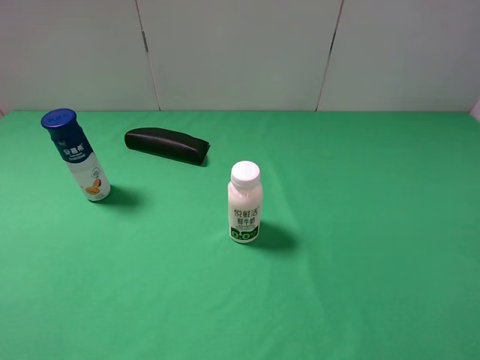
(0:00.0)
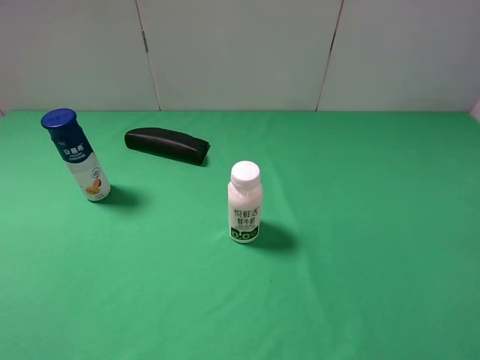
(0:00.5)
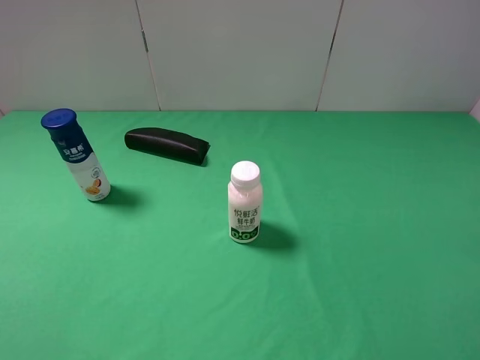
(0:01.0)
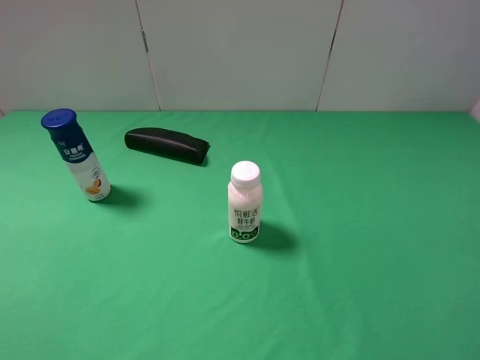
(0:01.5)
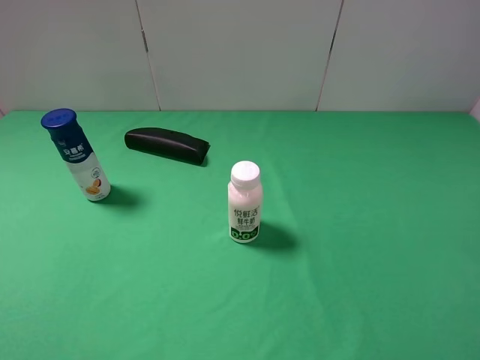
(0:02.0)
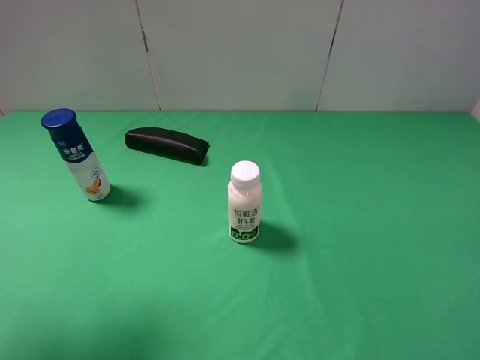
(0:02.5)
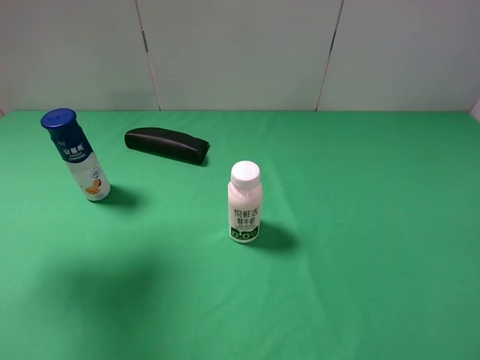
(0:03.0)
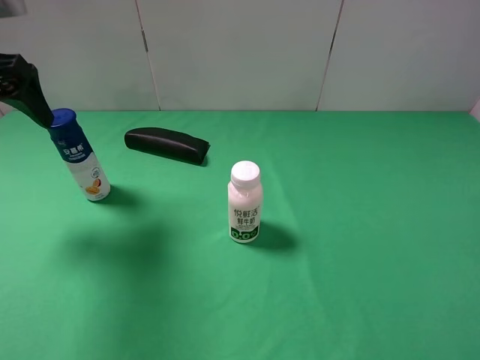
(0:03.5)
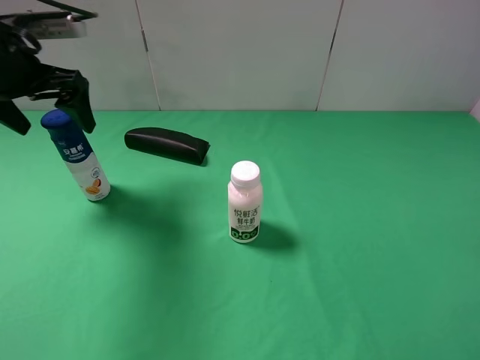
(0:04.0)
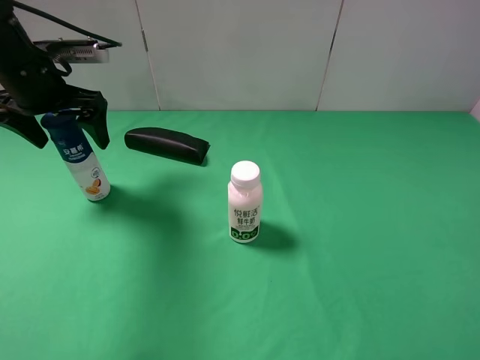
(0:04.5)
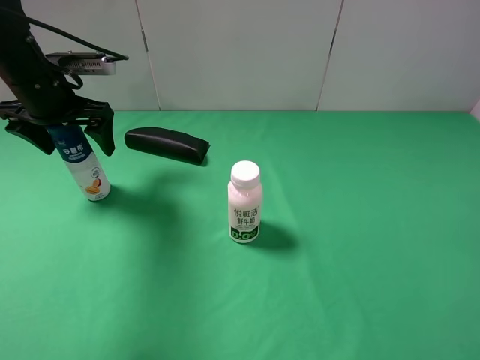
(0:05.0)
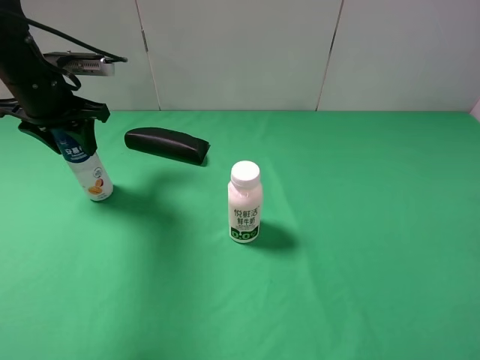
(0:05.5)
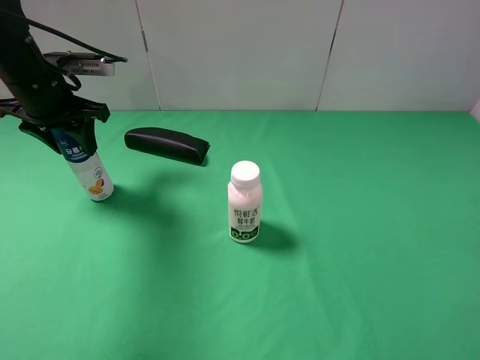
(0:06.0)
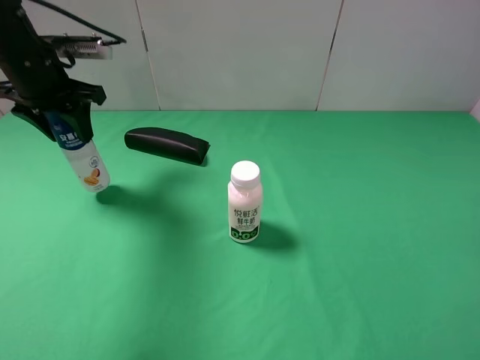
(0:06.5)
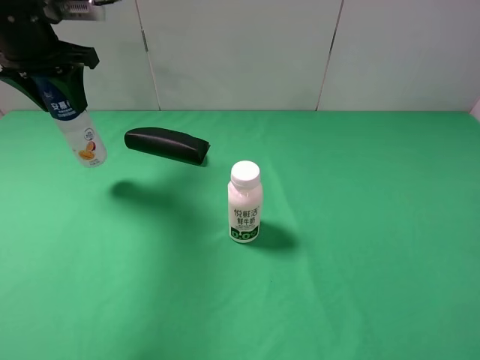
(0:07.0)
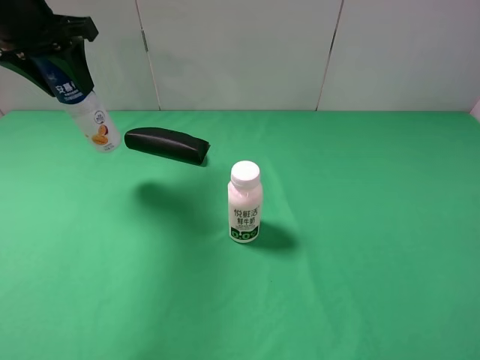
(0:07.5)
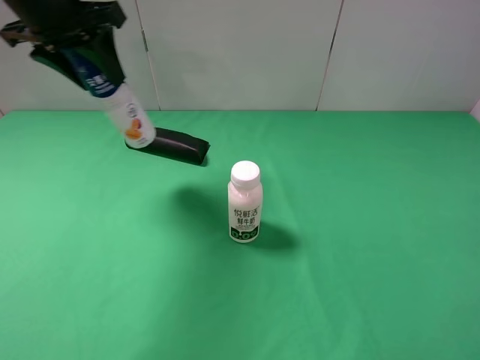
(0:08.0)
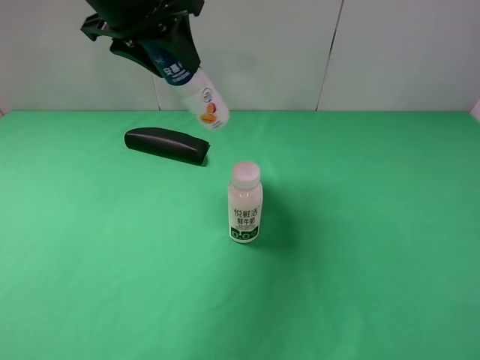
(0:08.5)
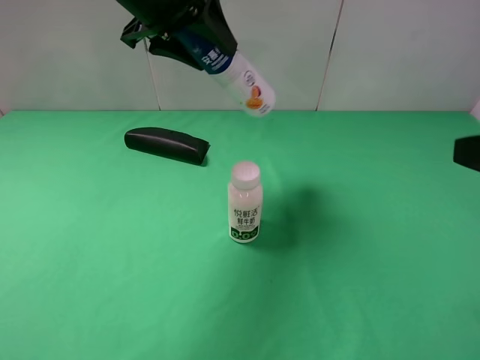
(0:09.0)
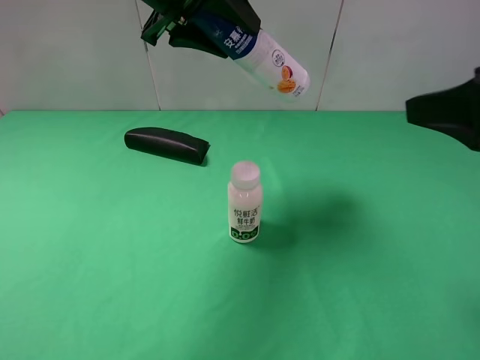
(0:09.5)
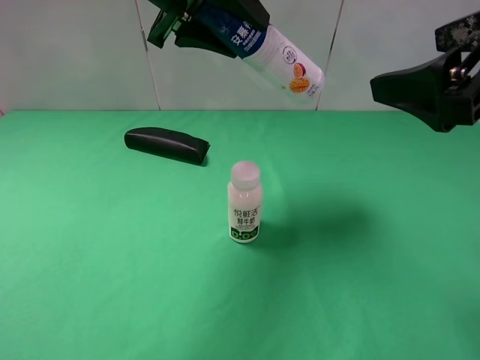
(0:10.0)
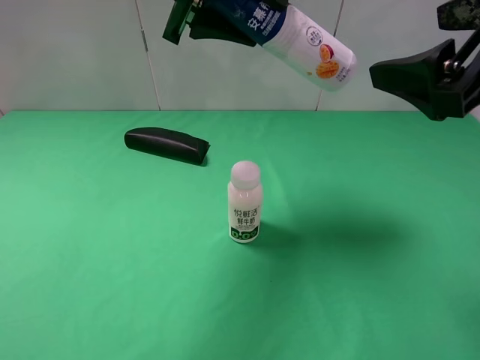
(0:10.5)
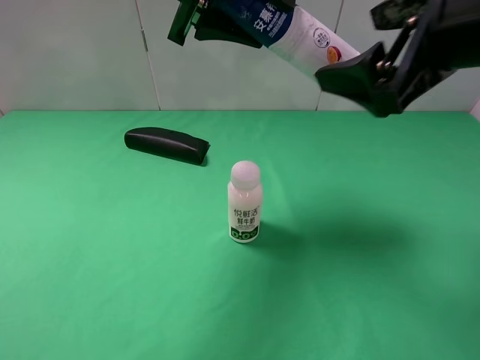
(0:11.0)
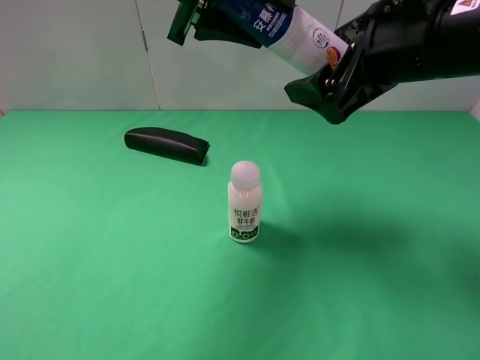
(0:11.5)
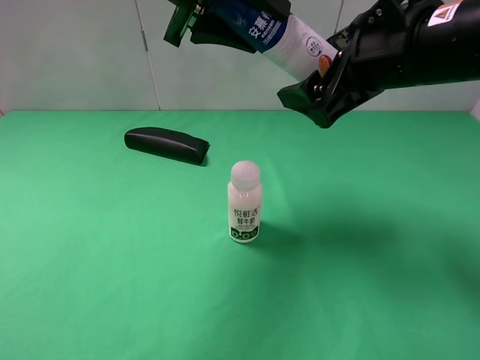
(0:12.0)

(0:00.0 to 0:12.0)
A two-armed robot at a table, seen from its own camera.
Task of the whole recording: use the left gripper to pick up the item and transfer it from the left gripper to the right gripper.
Step, 0:00.0 - 0:05.5: Use the left gripper to grab the yogurt on the left side of the table.
0:02.0 - 0:04.0: The left gripper travels forward by about 30 cm.
0:04.0 - 0:06.0: The left gripper shifts some 5 cm downward, and closes up.
0:06.0 - 0:08.0: The left gripper is displaced upward and to the right by some 15 cm.
0:08.0 - 0:10.0: The left gripper goes about 10 cm to the right; the right gripper travels forward, to the left and upward by about 20 cm.
0:10.0 - 0:12.0: The right gripper travels to the left and forward by approximately 10 cm.

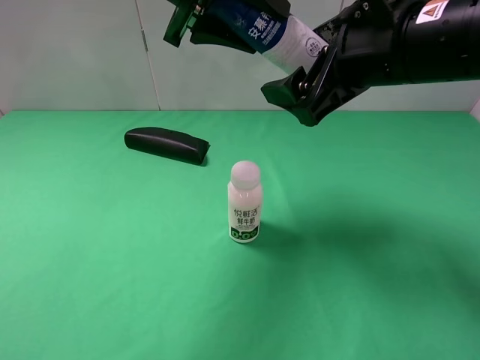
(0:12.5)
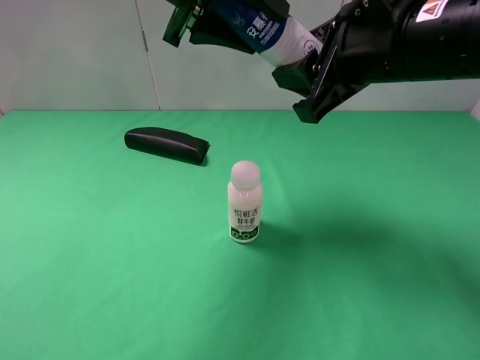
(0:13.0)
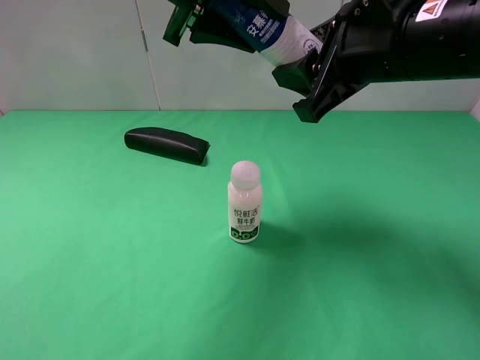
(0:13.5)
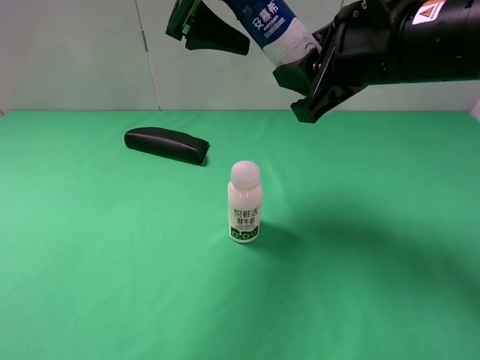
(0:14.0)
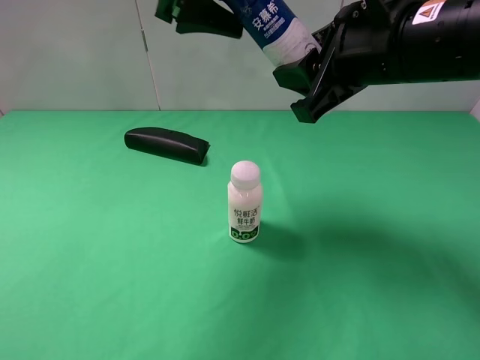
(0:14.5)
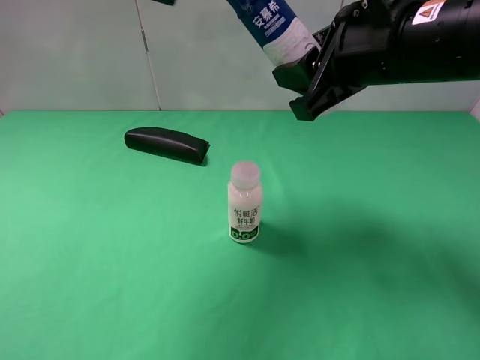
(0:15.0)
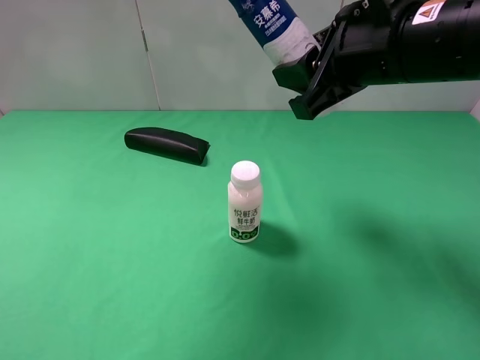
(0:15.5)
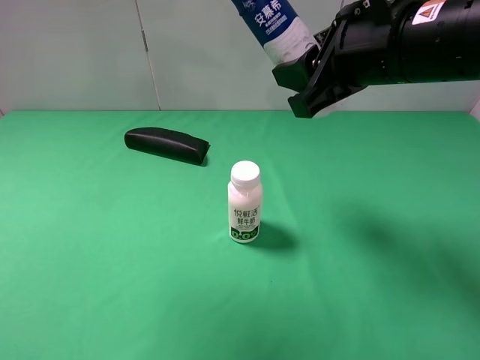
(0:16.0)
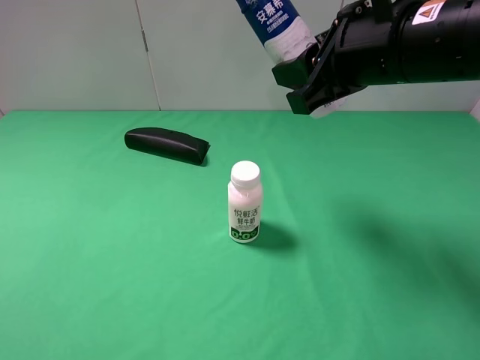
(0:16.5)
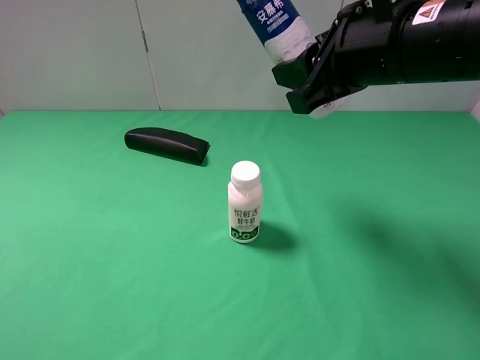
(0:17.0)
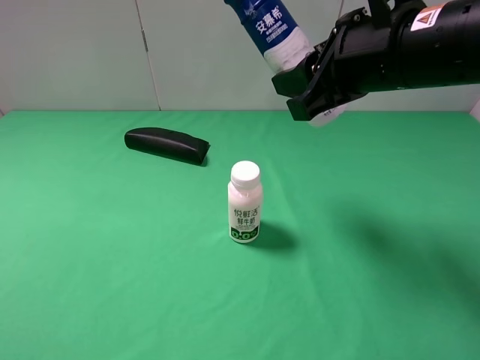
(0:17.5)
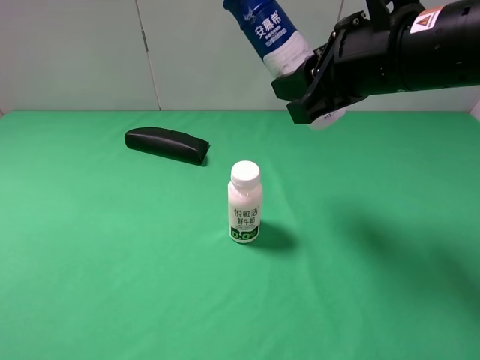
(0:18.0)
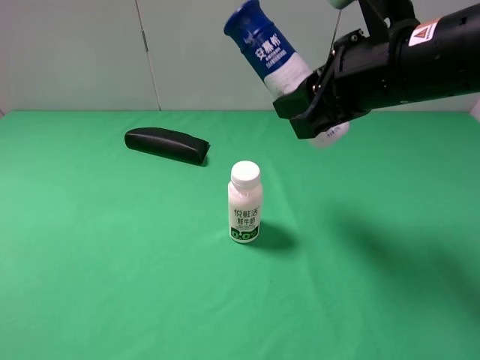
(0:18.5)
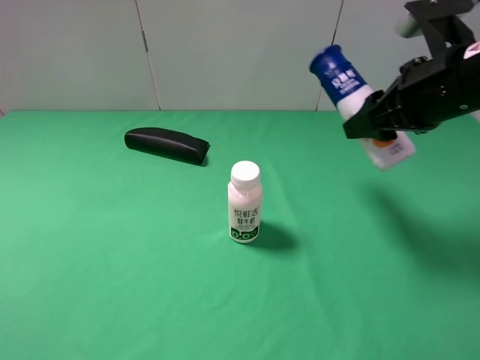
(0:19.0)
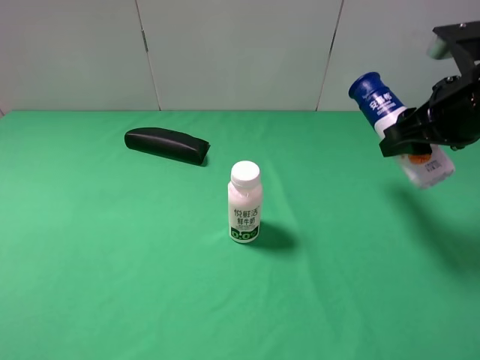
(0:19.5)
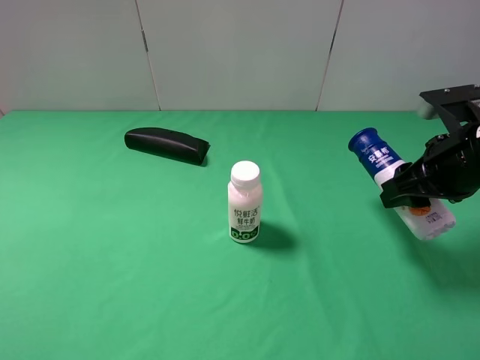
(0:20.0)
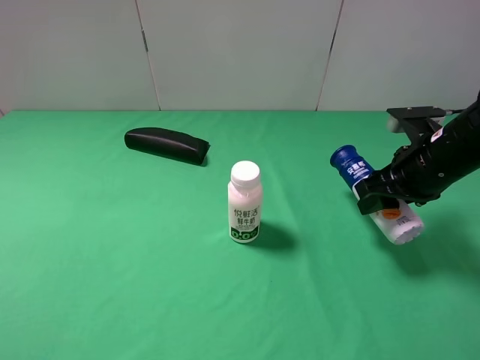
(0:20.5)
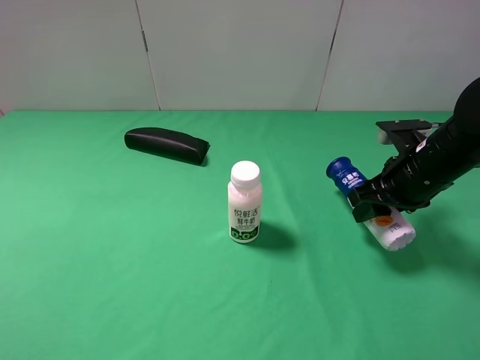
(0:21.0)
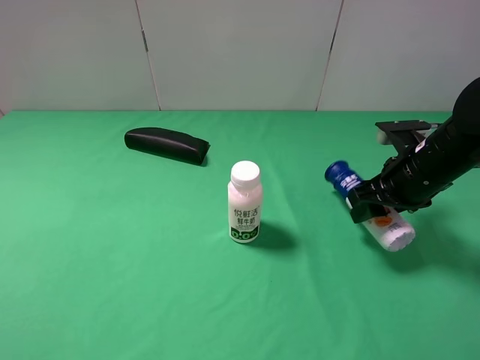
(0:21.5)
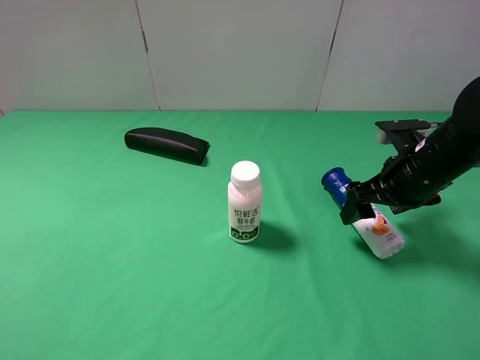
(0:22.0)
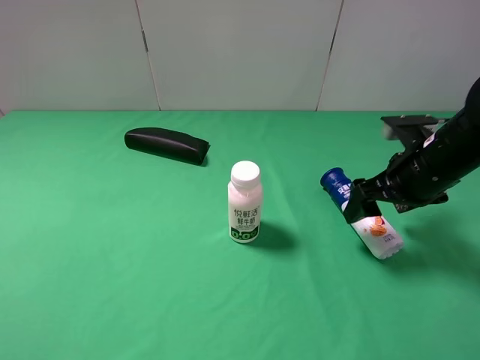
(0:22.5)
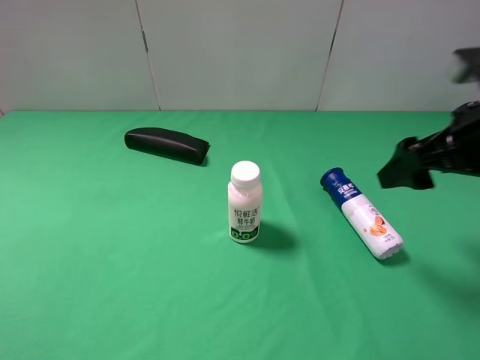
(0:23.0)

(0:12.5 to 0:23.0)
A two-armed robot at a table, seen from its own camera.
Task of the whole recording: use the left gripper to pick up the item and transfer it from the left gripper to the right gripper.
Step, 0:14.5 - 0:21.5: The right gripper places yogurt on the right side of the table.
0:12.5 - 0:14.5: The left gripper opens its fingers. The right gripper closes.
0:14.5 - 0:16.5: The left gripper is displaced backward and to the left by some 35 cm.
0:16.5 - 0:19.0: The right gripper is displaced to the right by about 10 cm. Meanwhile the left gripper is displaced downward by approximately 15 cm.
0:19.0 - 0:21.0: The right gripper moves downward, some 10 cm.
0:21.0 - 0:23.0: The right gripper shifts about 15 cm upward and backward, and opens.
